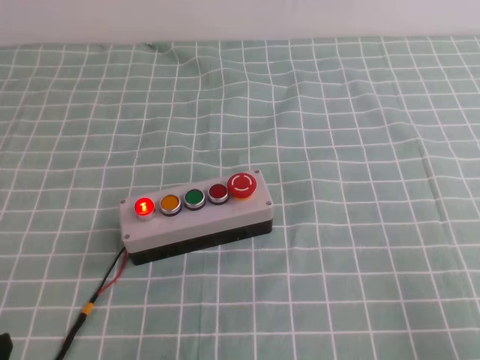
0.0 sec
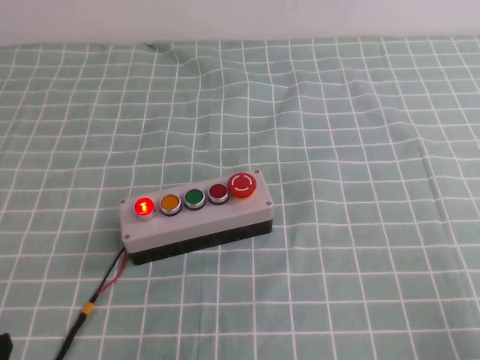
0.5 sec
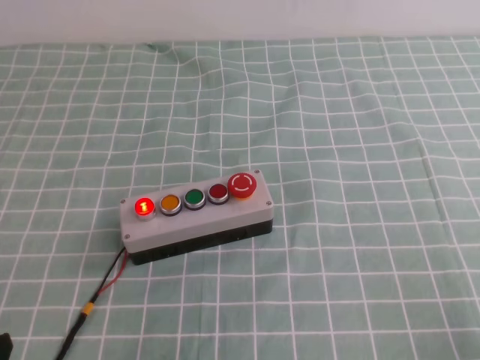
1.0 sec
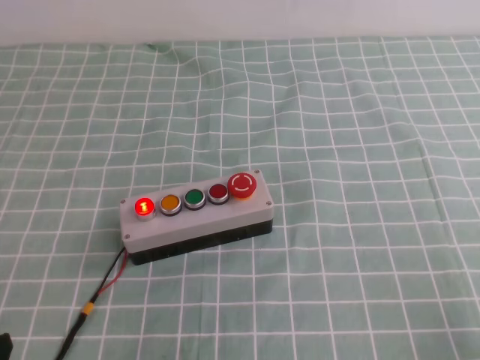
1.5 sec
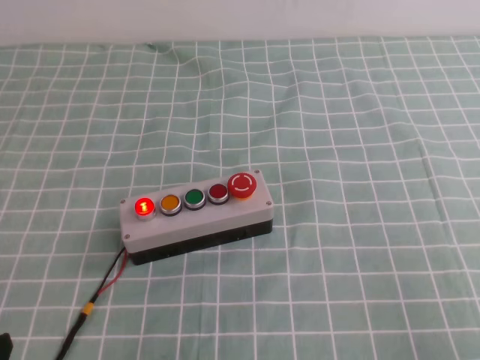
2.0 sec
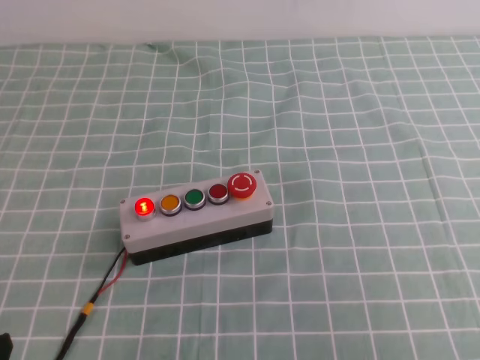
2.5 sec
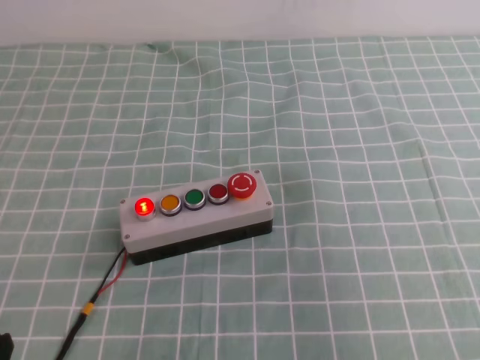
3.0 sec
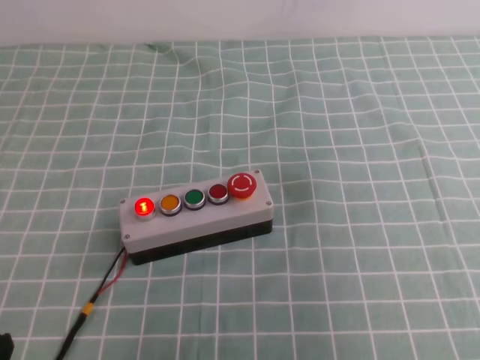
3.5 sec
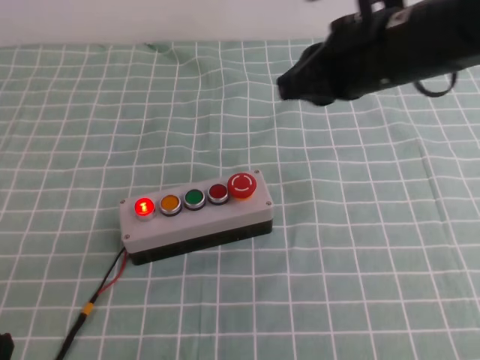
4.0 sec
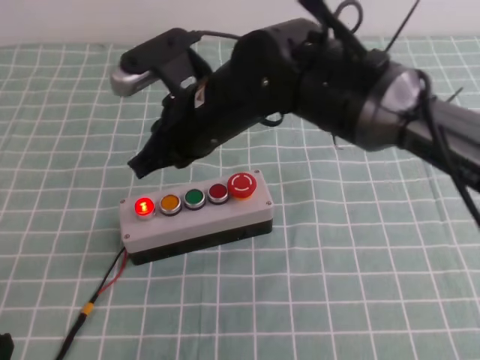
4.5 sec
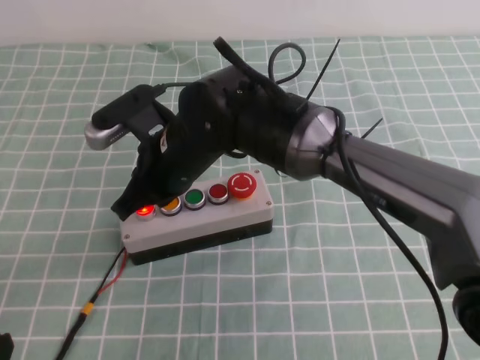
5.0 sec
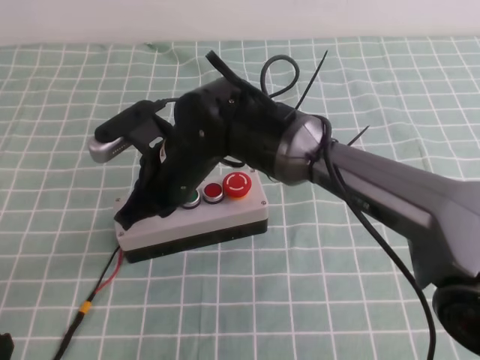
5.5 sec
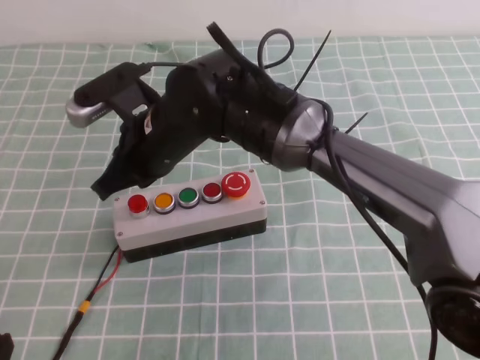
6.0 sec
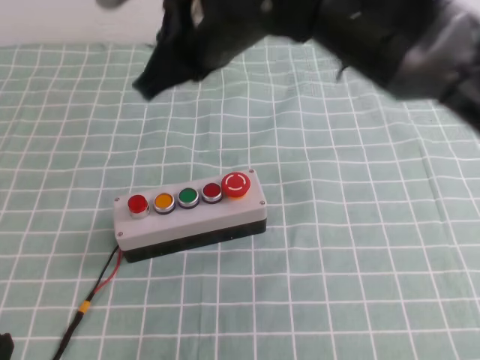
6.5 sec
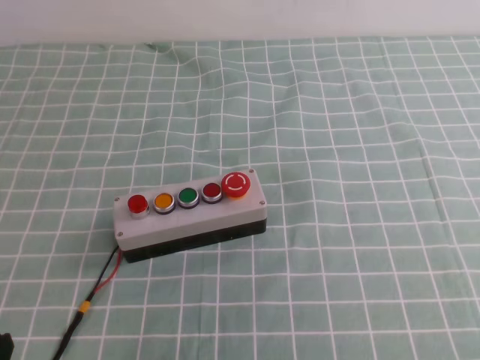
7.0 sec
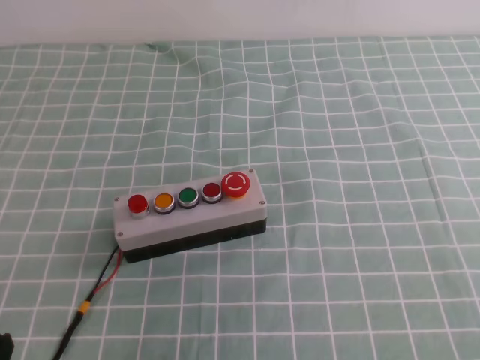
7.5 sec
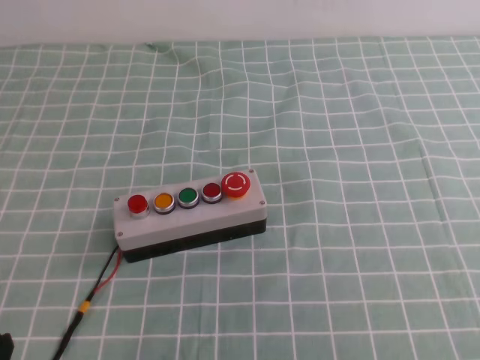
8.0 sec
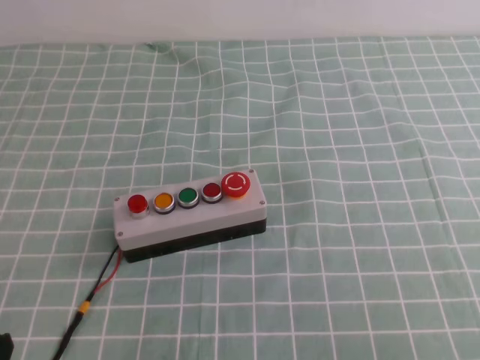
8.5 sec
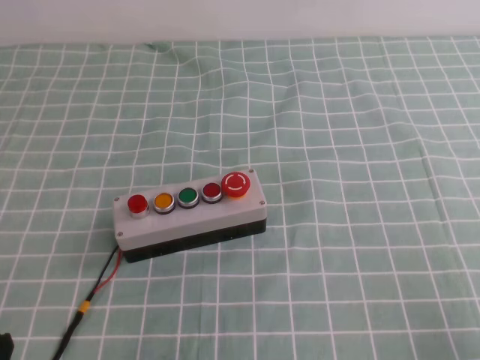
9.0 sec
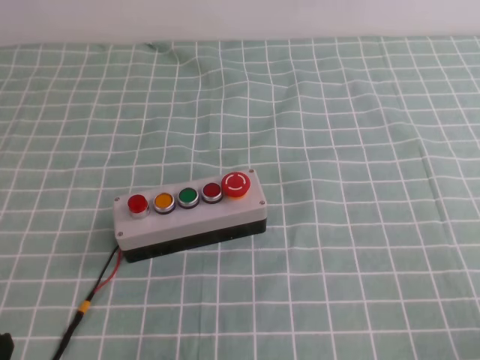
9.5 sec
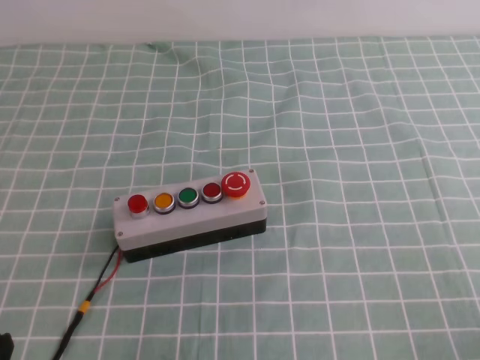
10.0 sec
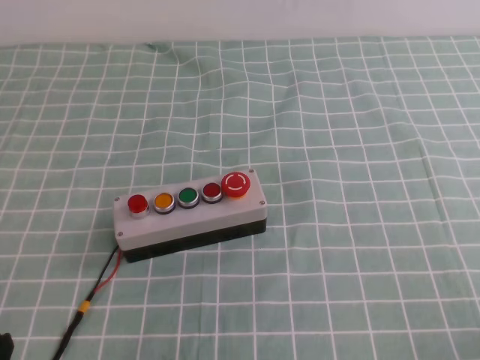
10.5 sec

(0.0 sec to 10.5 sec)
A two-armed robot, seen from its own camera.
Task of the whole recording: press the button switch on the cyan tablecloth with the right gripper to turn off the button.
Step, 0.0 sec - 10.5 sec: Press the button to turn off.
2.0 sec - 4.0 sec: The right gripper shifts some 35 cm forward, to the left and upward.
4.0 sec - 6.5 sec: The right gripper is displaced to the left by some 15 cm.
6.5 sec - 8.5 sec: The right gripper moves to the right and backward, some 40 cm.
